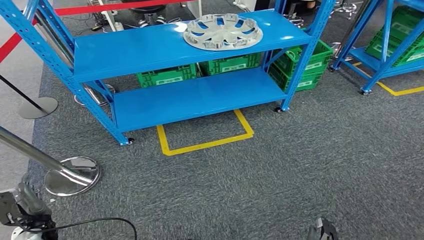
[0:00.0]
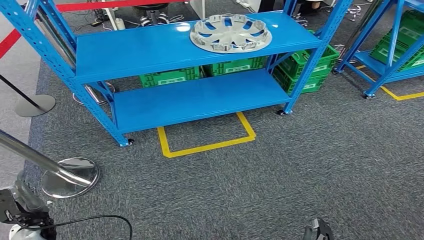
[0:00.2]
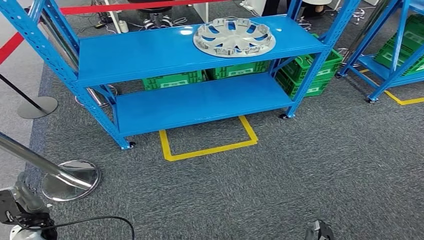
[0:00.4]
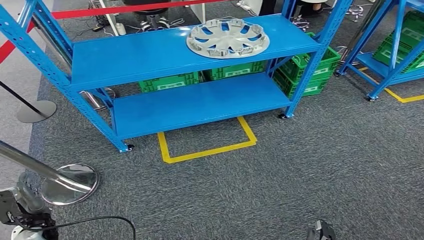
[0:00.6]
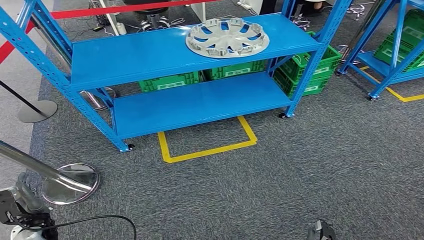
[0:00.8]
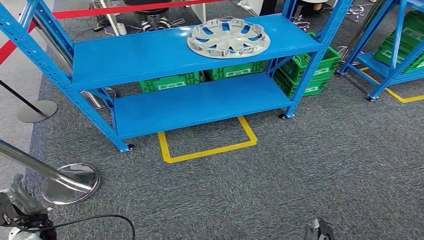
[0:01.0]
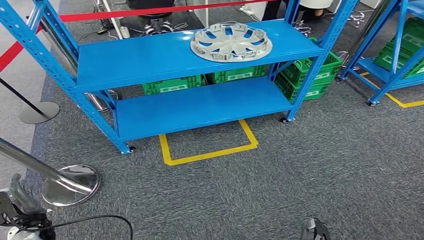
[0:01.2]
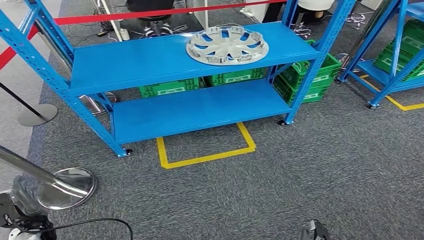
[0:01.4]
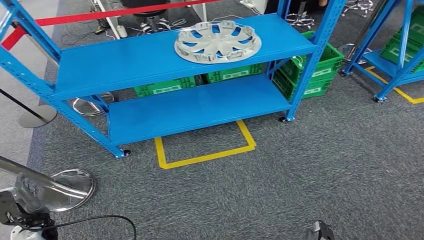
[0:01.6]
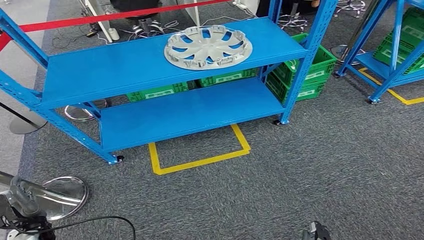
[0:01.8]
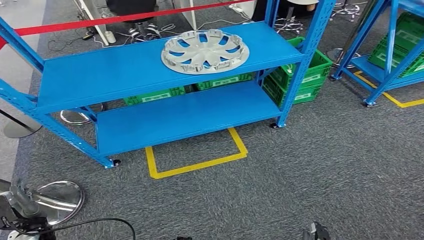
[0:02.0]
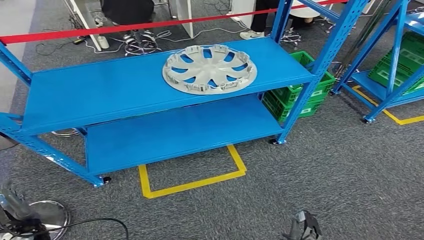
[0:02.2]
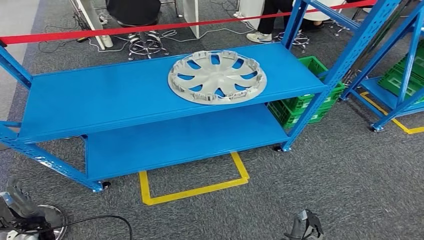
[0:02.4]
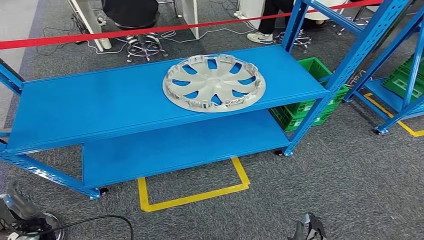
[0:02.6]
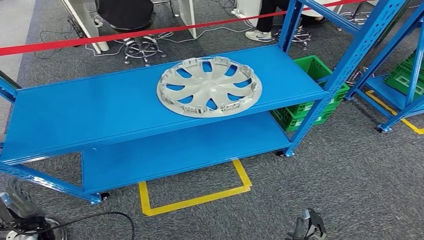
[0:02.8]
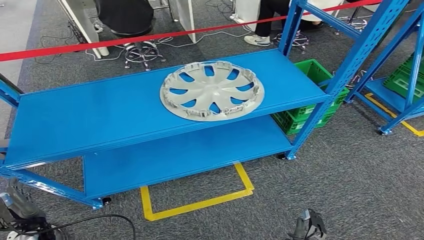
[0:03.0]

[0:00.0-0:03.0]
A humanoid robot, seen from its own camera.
Step, 0:00.0 to 0:03.0: Move to the initial position of the workbench.

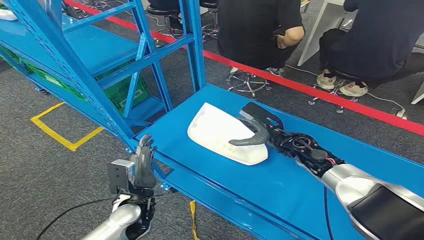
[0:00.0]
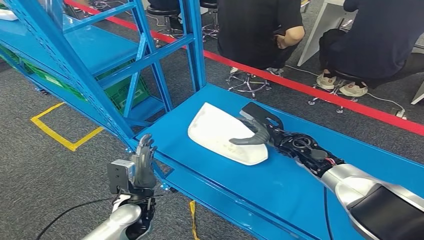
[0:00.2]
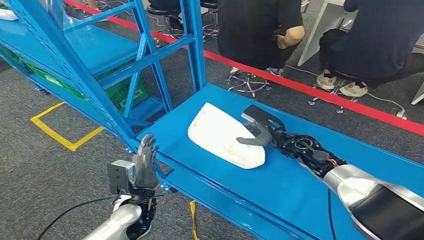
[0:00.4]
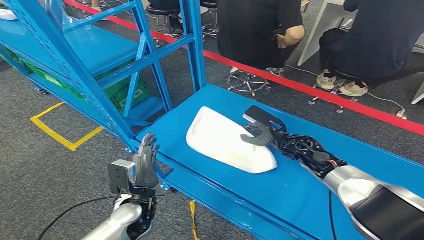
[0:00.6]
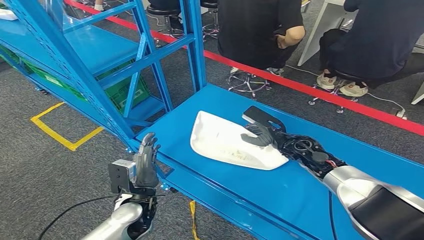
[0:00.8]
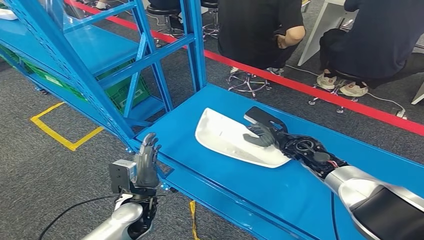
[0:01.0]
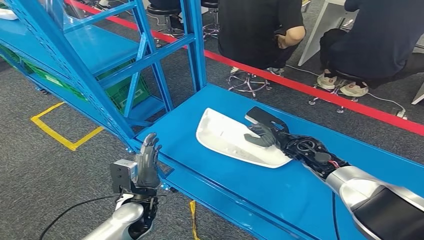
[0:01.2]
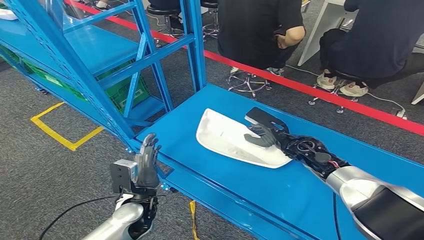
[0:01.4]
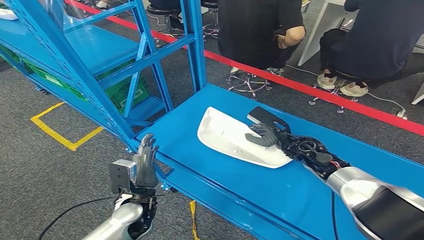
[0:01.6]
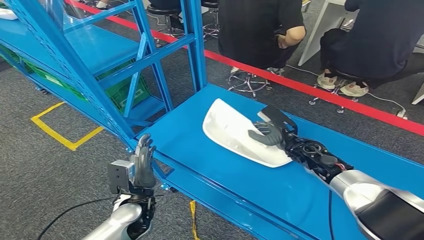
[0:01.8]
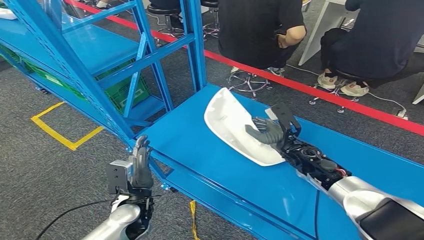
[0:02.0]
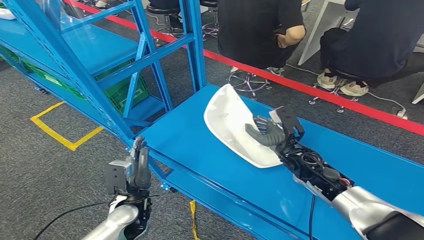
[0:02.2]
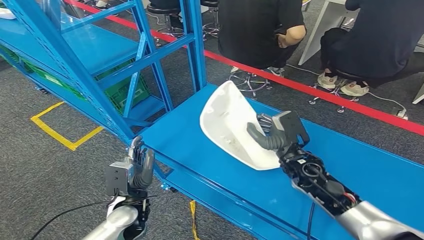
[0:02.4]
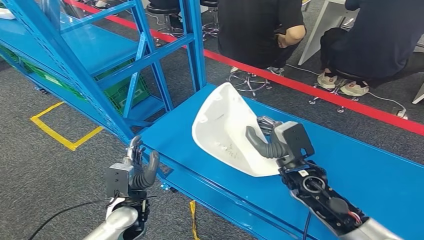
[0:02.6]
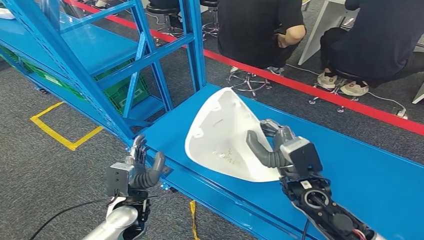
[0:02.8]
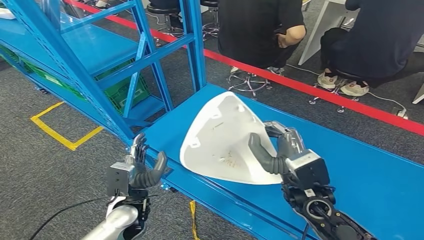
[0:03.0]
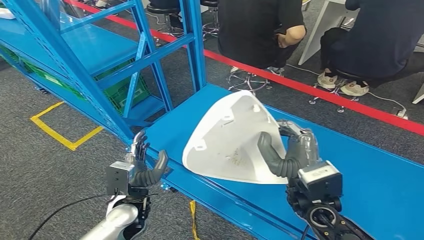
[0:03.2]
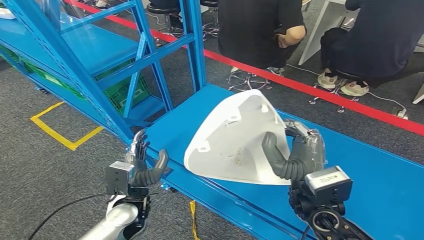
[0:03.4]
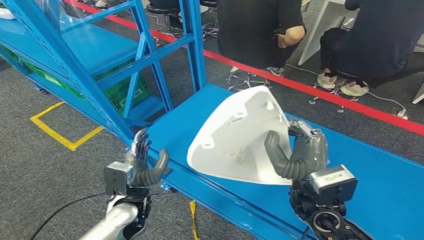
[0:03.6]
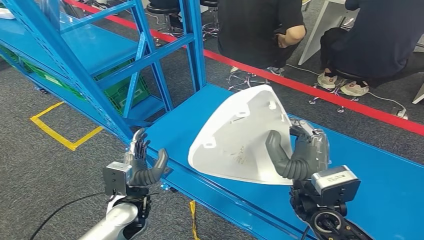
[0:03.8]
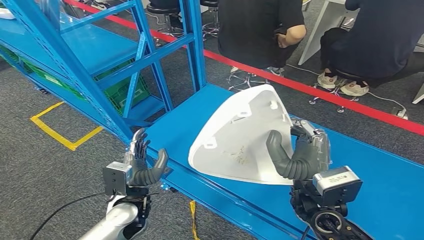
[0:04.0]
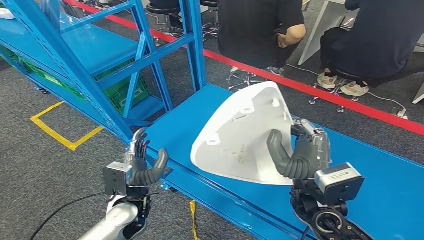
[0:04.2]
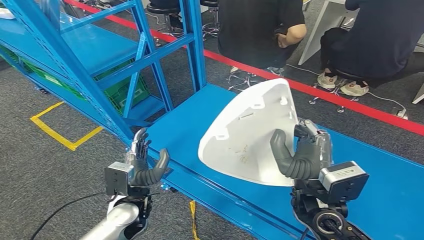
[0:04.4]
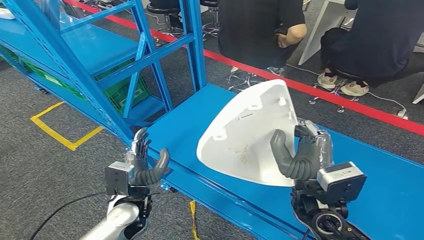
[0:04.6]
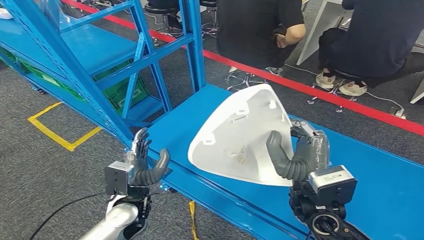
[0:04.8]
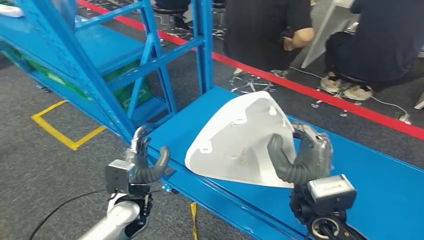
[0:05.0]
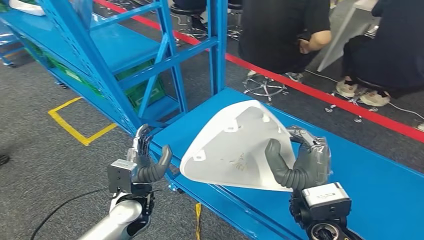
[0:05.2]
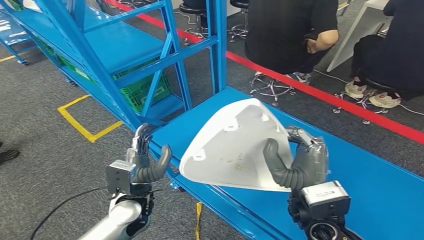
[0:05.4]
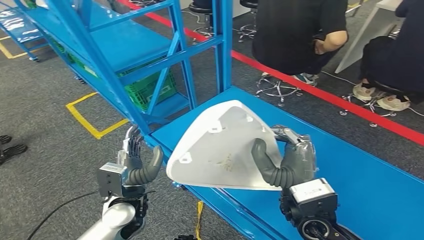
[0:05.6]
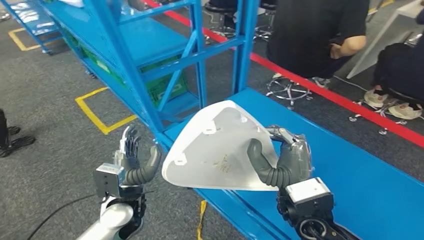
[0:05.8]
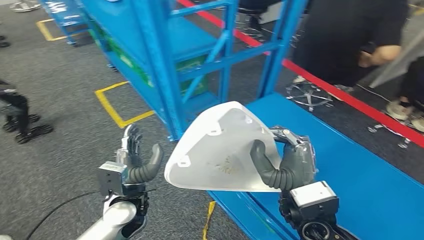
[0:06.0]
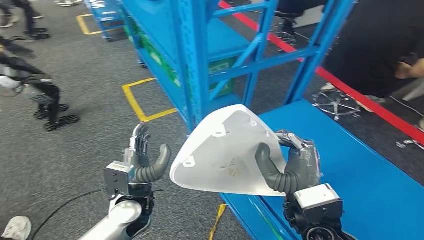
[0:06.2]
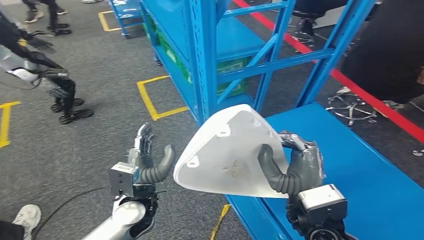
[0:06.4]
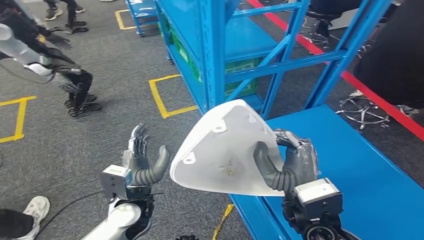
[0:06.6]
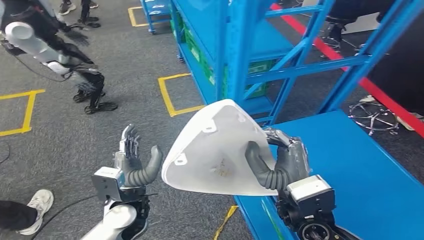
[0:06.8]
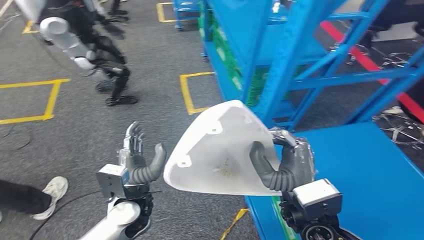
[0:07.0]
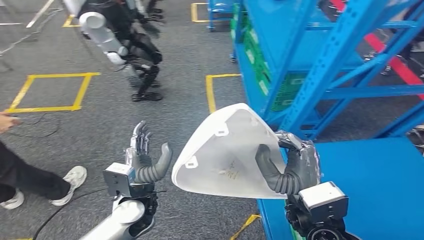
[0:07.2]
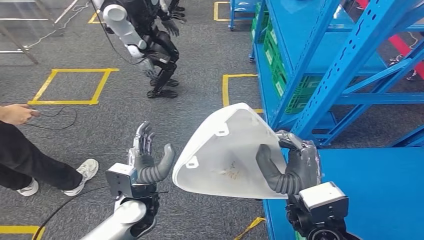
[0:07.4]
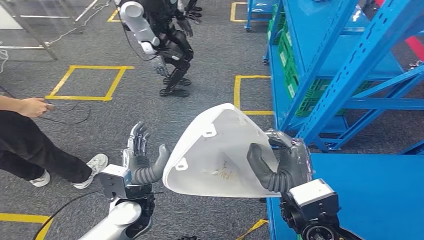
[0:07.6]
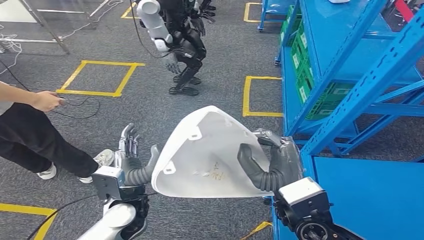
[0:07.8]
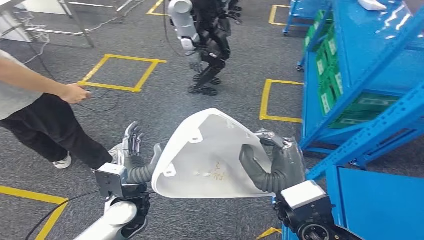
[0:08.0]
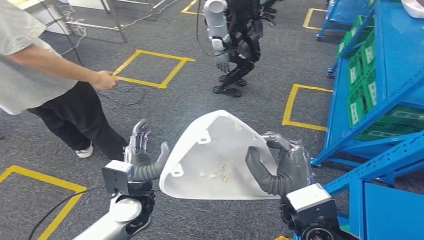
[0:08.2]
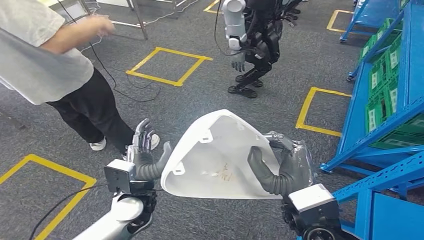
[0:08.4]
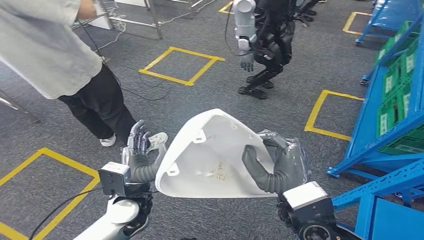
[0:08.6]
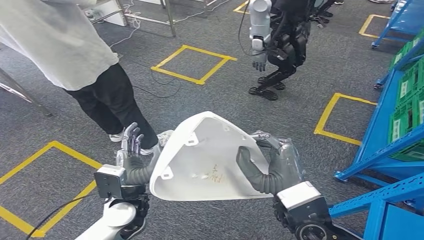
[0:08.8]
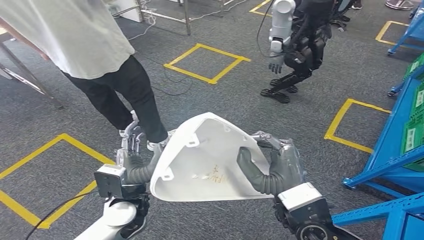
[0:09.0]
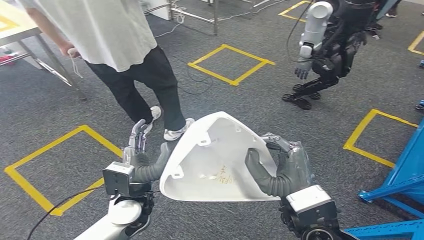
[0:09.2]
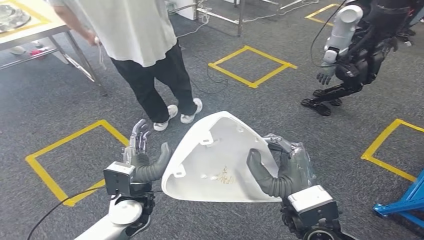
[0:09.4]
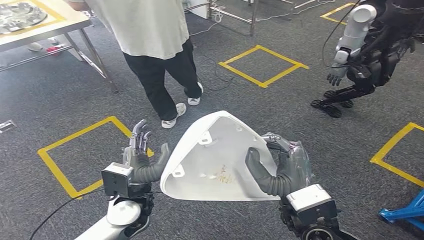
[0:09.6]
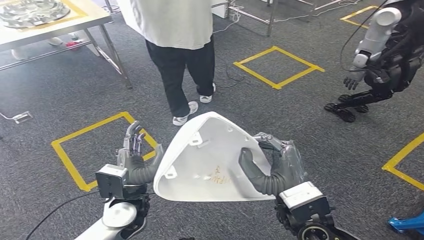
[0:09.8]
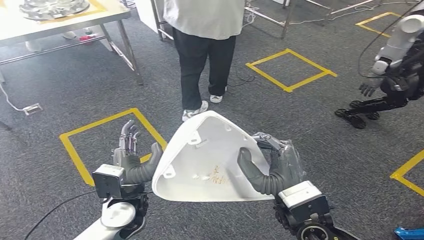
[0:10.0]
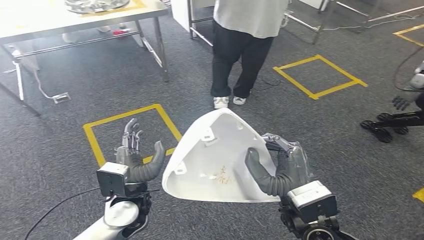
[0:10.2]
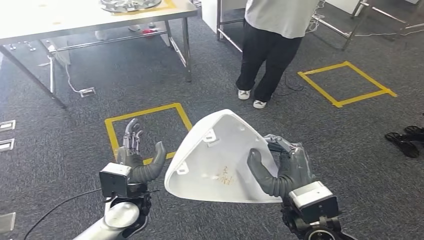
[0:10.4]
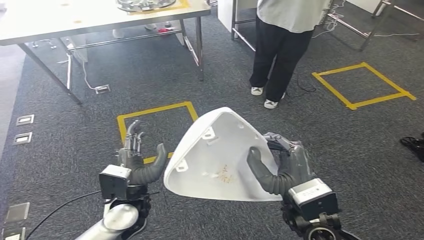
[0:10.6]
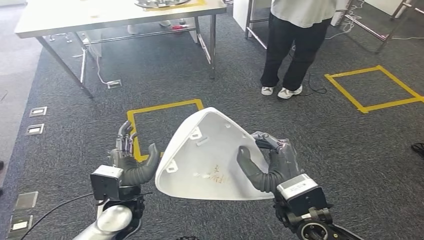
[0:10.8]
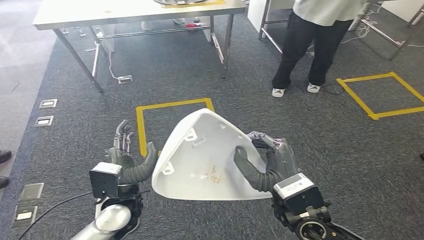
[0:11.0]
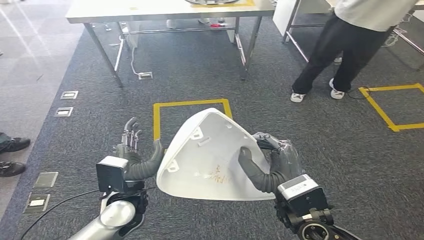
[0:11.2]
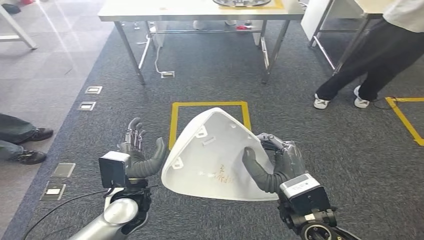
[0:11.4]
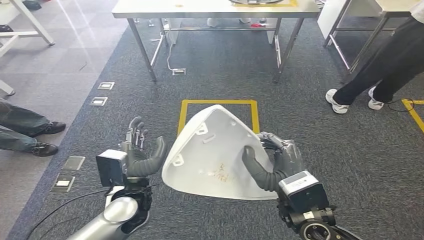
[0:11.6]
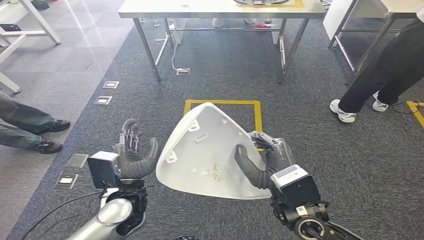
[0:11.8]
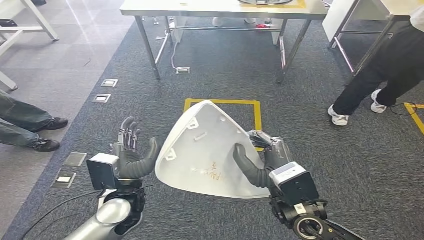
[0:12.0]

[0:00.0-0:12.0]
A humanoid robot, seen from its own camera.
Step, 0:00.0 to 0:05.0: Take small components from the rack.
0:01.6 to 0:03.0: The right hand travels backward by approximately 15 cm.
0:03.0 to 0:04.4: The hands stay close to where they were, moving slightly.

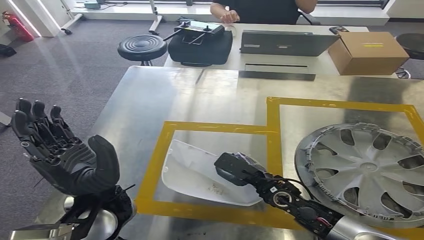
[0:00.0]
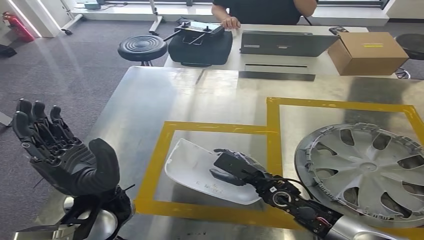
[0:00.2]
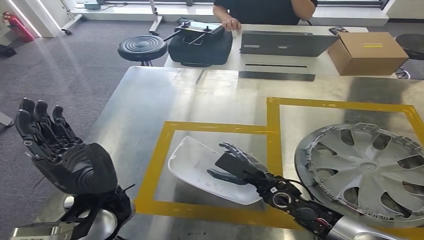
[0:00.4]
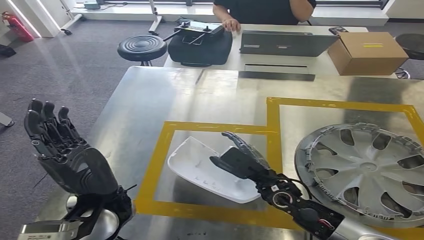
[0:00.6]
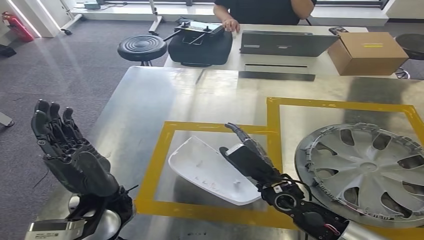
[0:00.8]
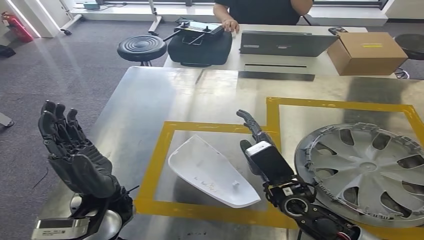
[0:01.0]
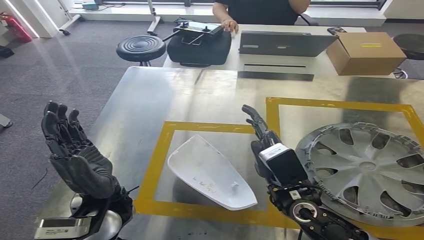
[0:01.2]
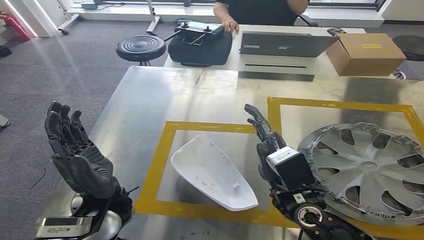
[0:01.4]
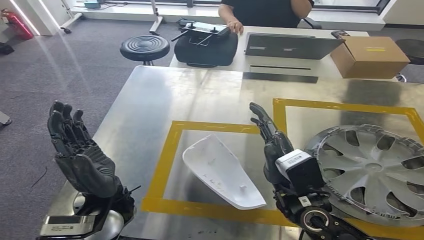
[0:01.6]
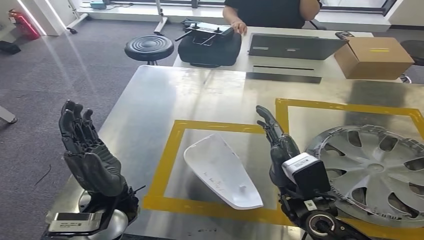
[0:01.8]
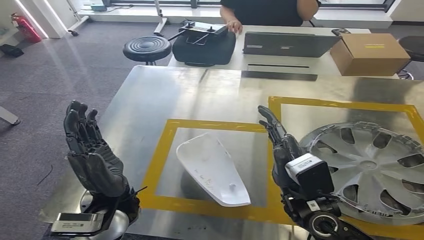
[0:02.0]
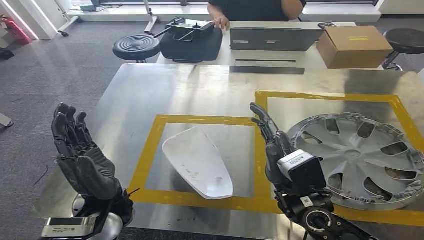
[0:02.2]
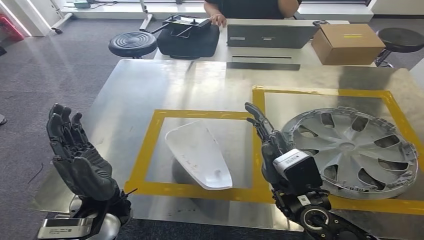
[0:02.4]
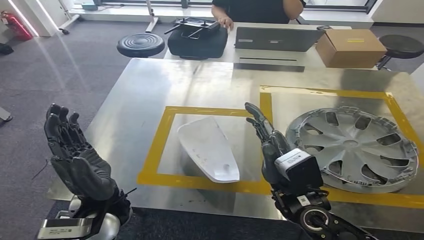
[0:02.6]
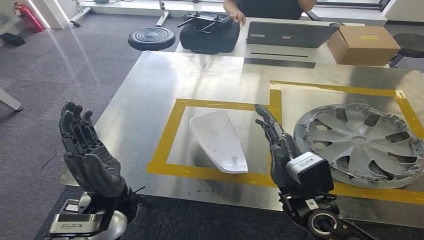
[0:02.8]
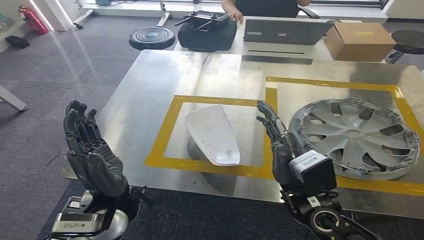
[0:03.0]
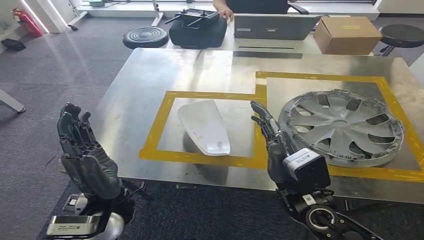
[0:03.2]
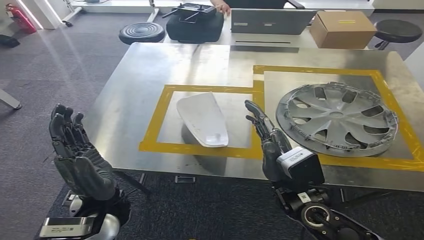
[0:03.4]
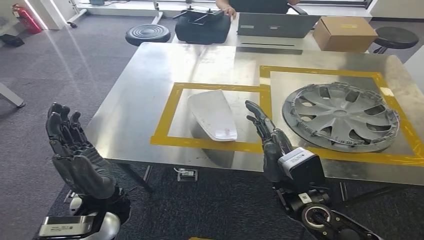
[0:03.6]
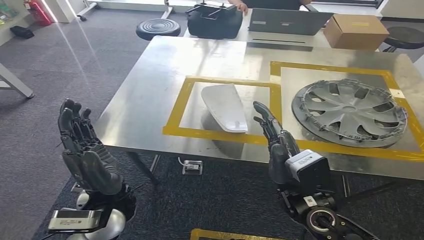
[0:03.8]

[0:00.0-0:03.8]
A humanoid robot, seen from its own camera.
Step, 0:00.0 to 0:03.6: Insert the small parts into the corresponding holes on the workbench.
